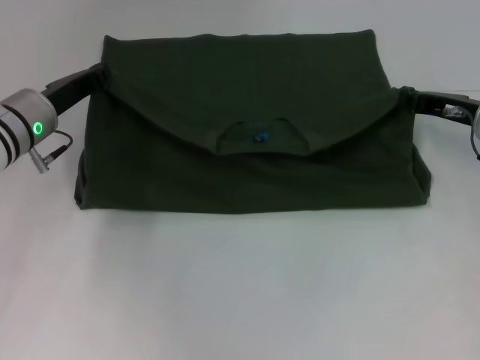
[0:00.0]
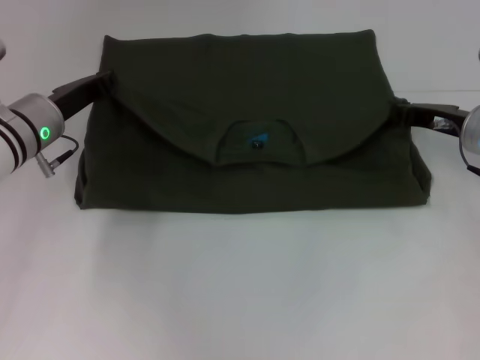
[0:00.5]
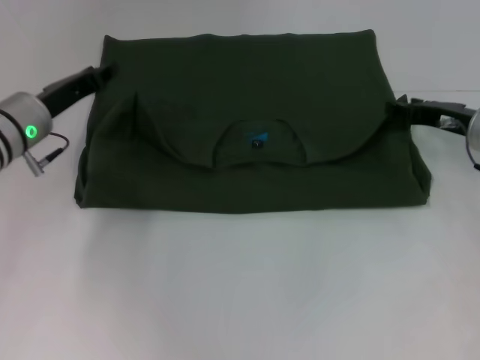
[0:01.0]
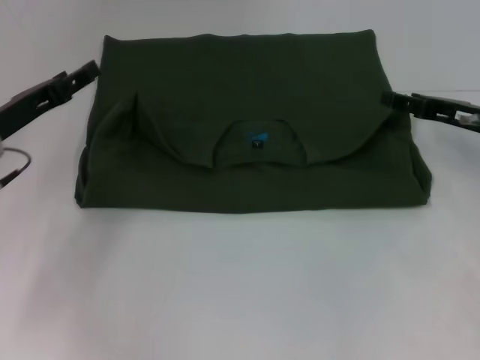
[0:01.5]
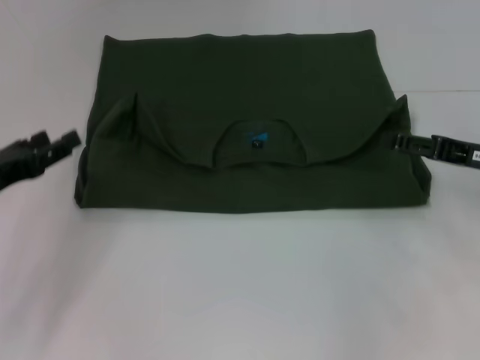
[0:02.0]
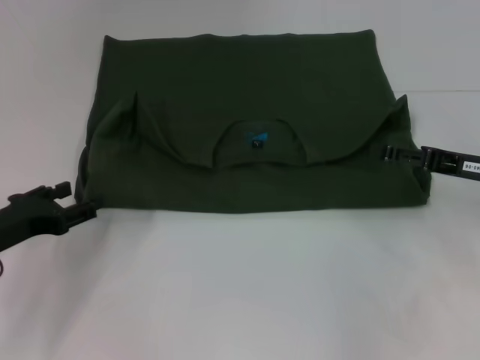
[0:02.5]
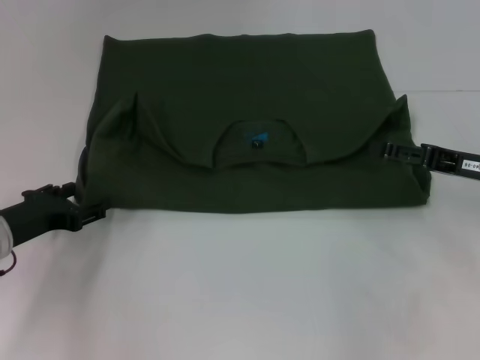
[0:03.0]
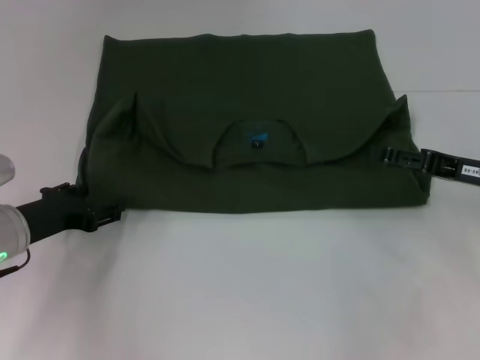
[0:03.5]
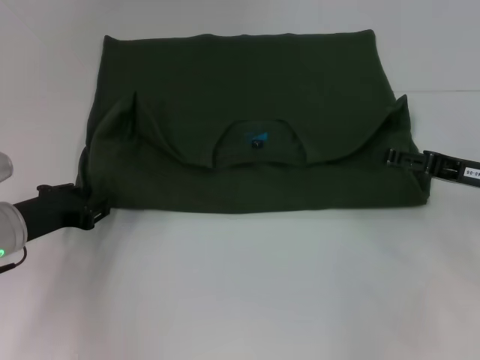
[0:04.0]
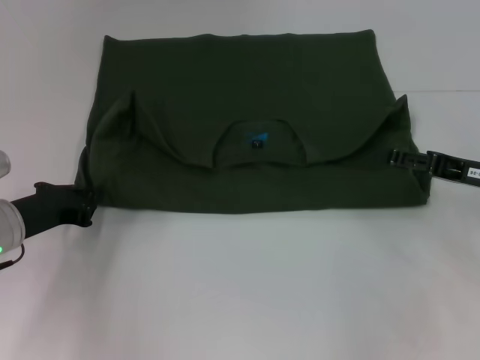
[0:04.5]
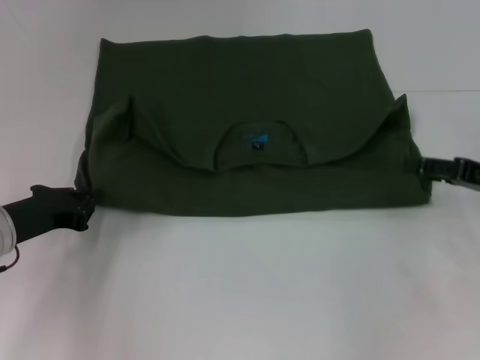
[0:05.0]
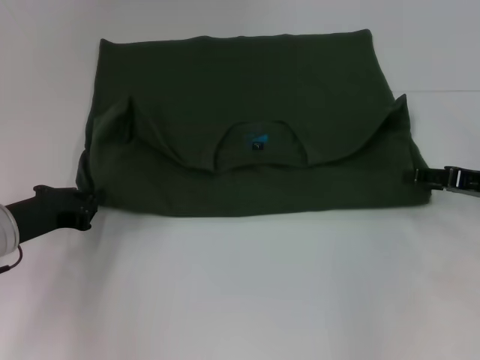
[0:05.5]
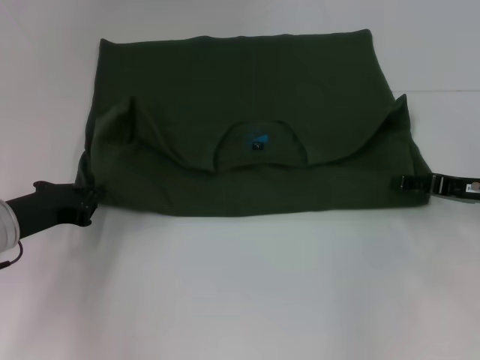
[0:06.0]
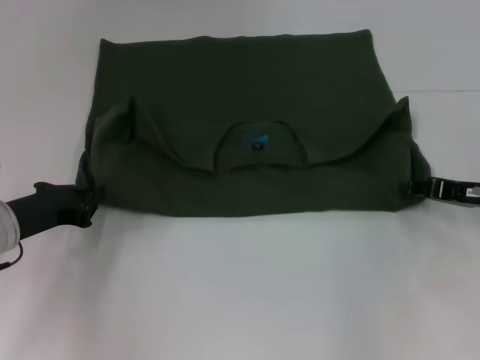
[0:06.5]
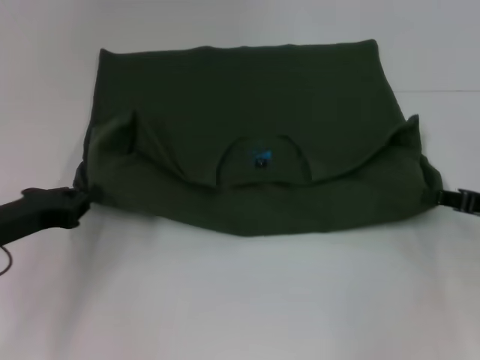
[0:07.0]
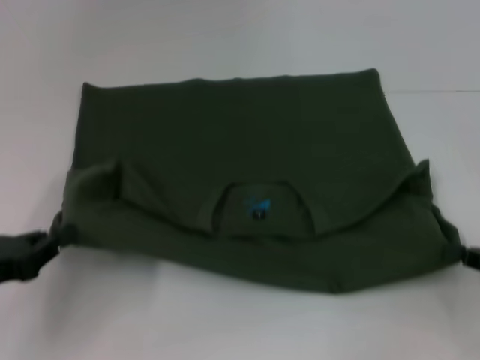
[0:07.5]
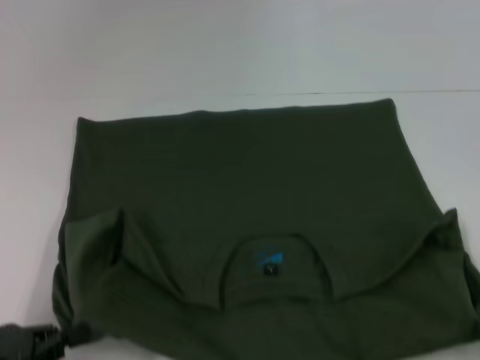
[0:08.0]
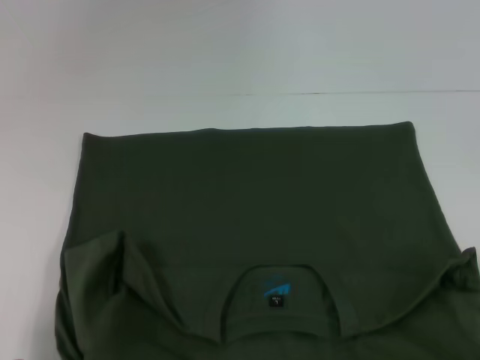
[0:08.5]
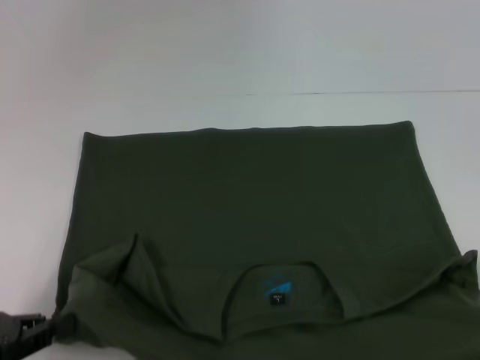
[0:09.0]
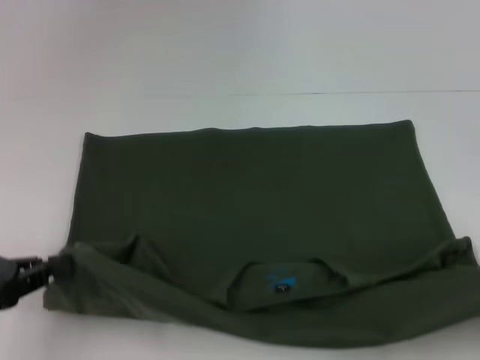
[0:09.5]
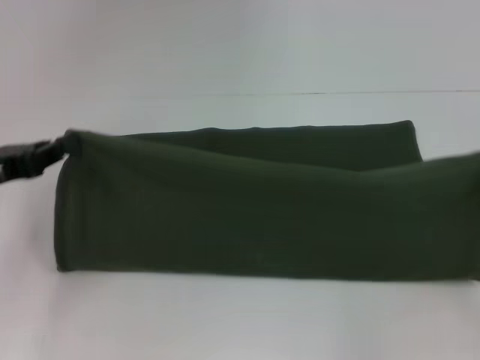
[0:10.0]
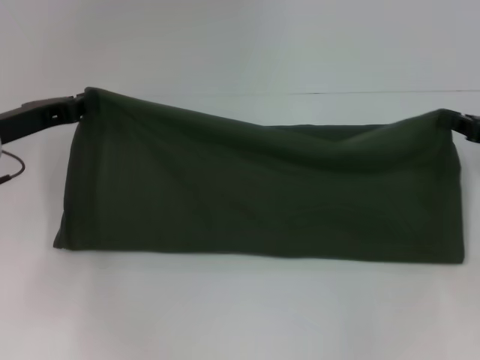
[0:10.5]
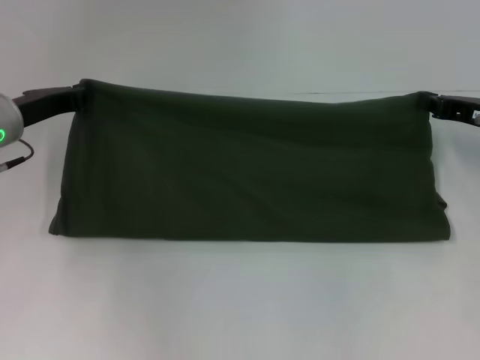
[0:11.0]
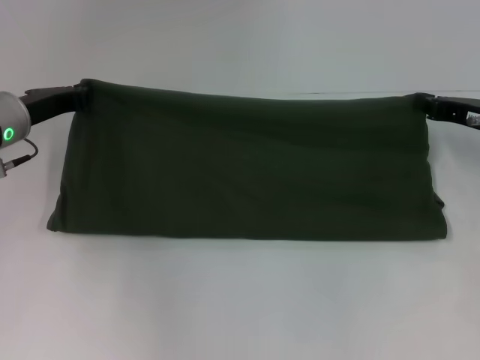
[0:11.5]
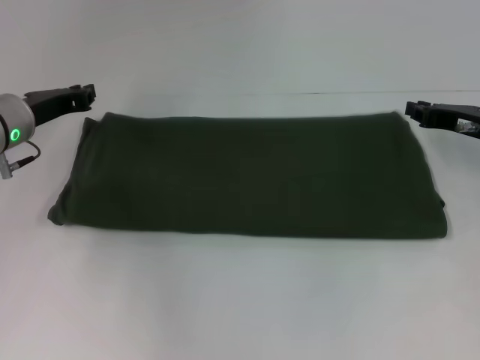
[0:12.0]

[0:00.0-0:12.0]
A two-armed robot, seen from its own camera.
Step, 0:01.0 to 0:08.0: Pull the clothes with your left hand.
Step, 0:01.0 to 0:08.0: Pull the clothes with your right hand.
Step, 0:08.5 to 0:12.0: Fold the clothes with your right hand.
0:00.0 to 0:02.0: The right gripper heads backward, covering roughly 5 cm, and opens, while the left gripper moves backward and to the left, about 15 cm, and opens.
0:02.0 to 0:04.0: The left gripper ends up about 5 cm from where it was.
0:04.0 to 0:06.0: The left gripper closes up.
0:06.0 to 0:08.0: The grippers both shift backward by roughly 15 cm. The right gripper closes up.
0:08.0 to 0:10.0: The two grippers go some 15 cm forward and upward.
0:10.0 to 0:12.0: The left gripper is displaced forward and to the right by some 15 cm. The right gripper moves forward and to the left, about 15 cm.

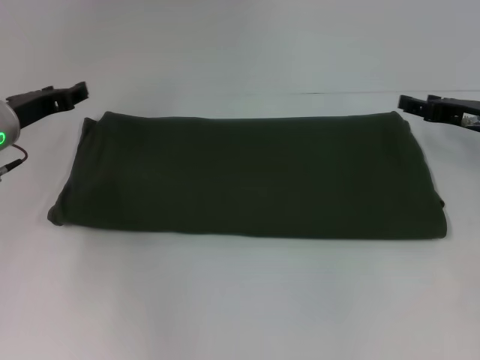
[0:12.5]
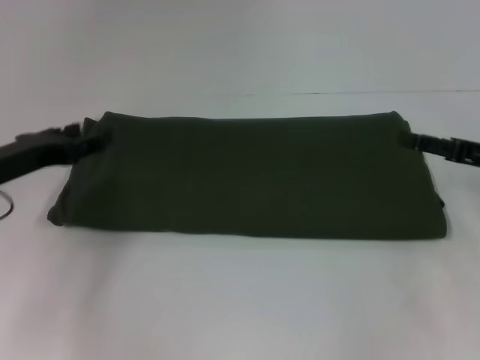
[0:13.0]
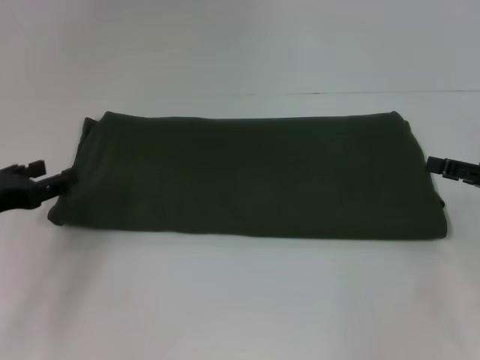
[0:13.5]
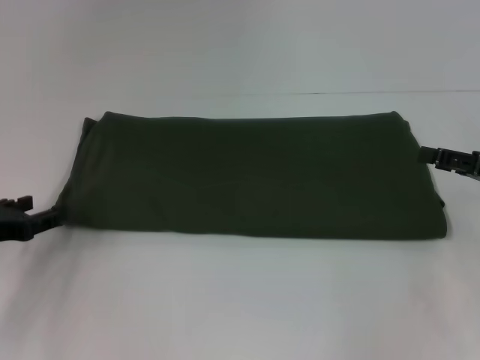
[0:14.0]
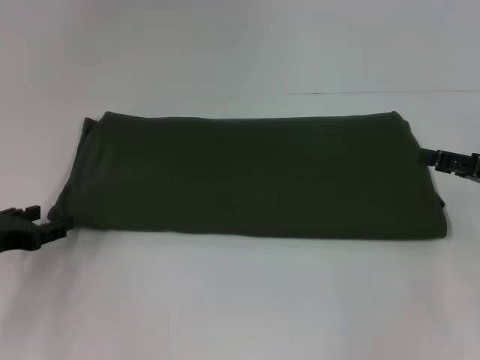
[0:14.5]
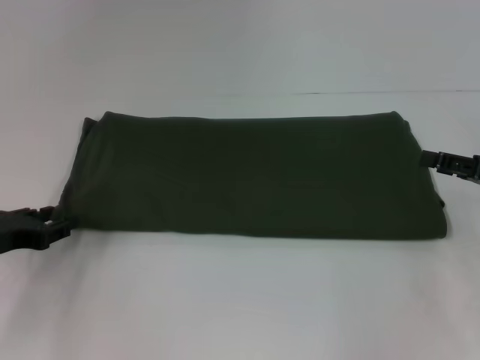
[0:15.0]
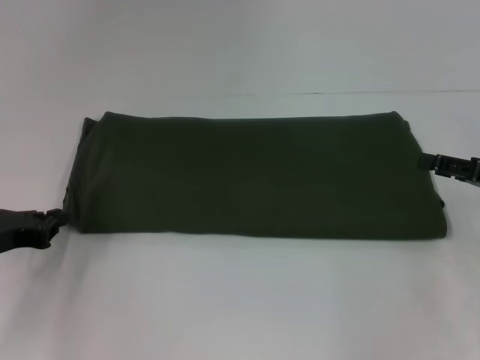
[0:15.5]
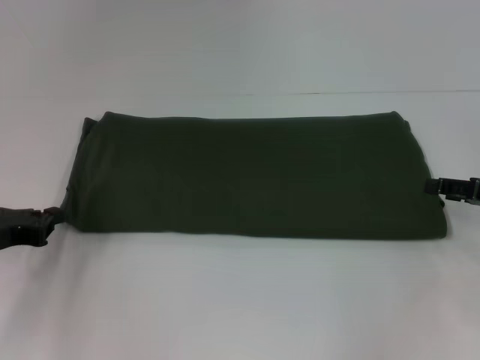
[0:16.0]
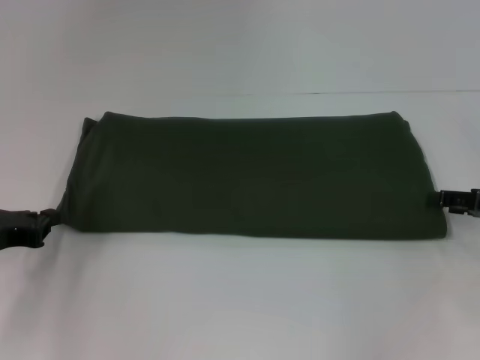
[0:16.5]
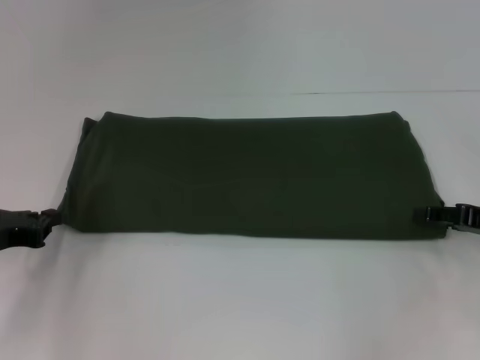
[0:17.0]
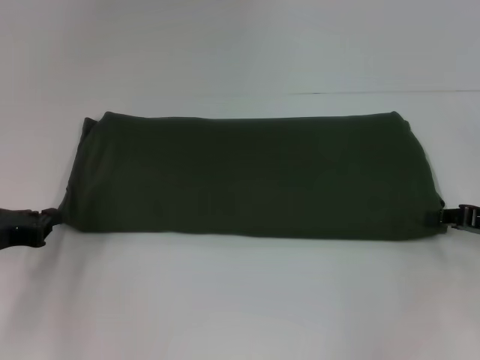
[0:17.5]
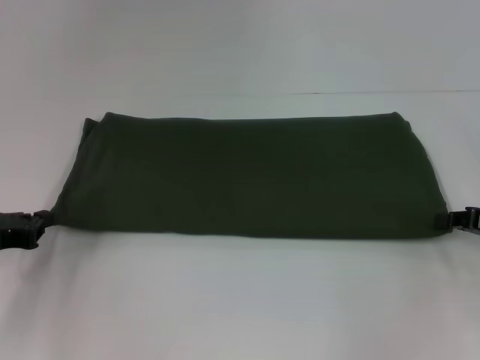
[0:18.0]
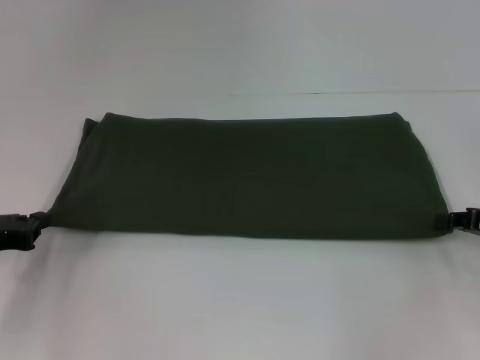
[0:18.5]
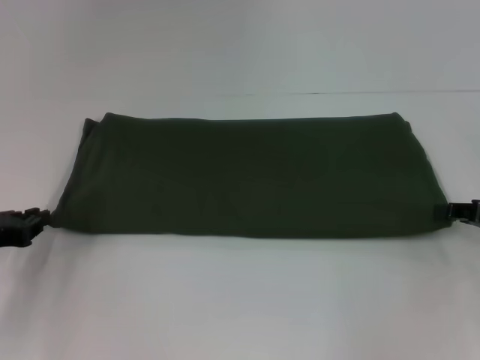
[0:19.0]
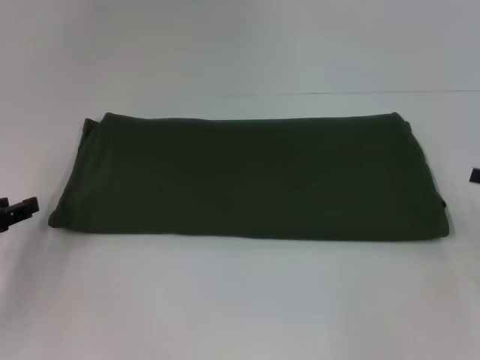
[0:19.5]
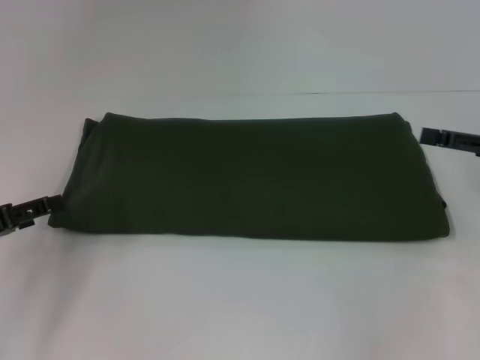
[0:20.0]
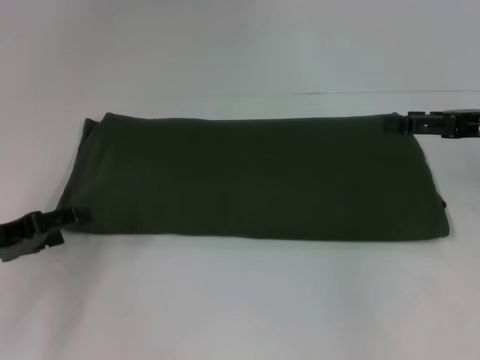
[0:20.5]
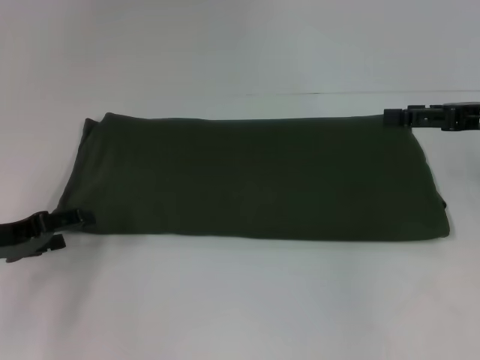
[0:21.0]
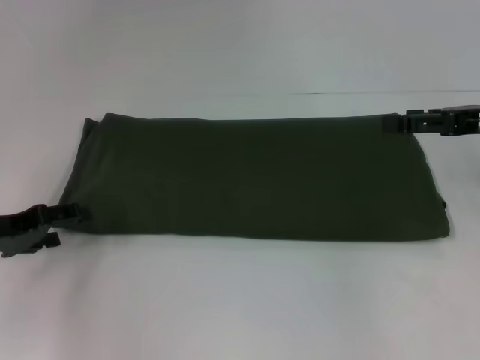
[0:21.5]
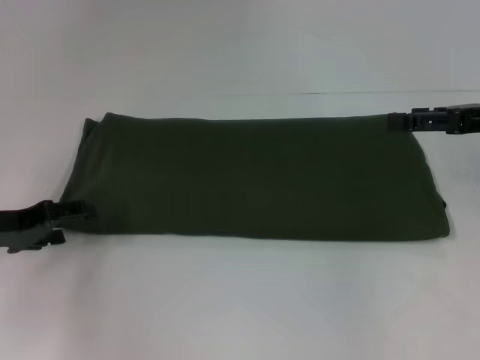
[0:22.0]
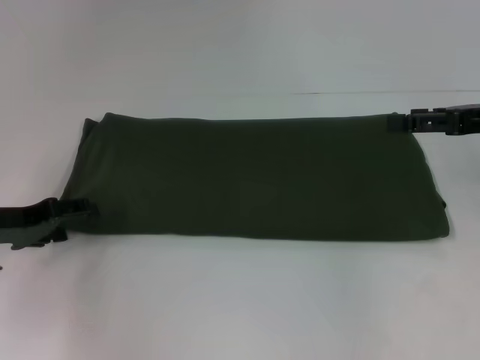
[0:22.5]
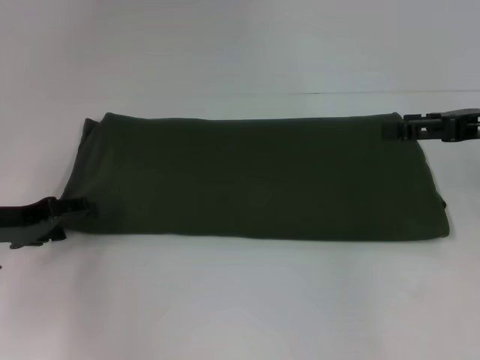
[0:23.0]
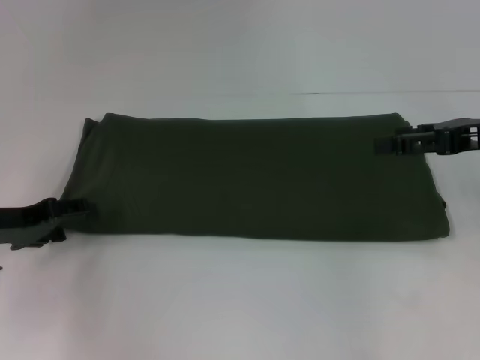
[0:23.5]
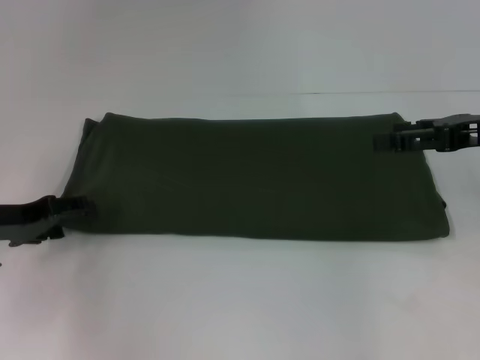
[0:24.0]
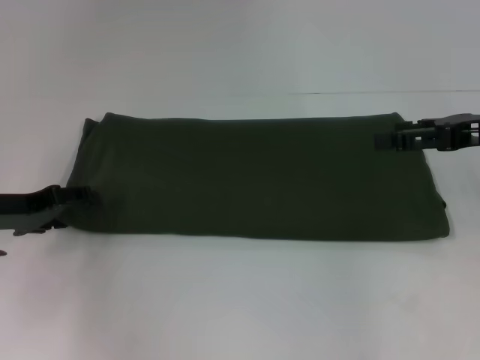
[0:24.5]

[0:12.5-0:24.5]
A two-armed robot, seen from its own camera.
0:12.5 to 0:14.5: The right gripper is displaced backward by about 10 cm. The left gripper is displaced backward by about 10 cm.
0:14.5 to 0:16.5: The left gripper closes up.
0:16.5 to 0:18.5: The right gripper closes.
0:18.5 to 0:20.5: The right gripper moves upward and forward, approximately 10 cm, and opens up. Meanwhile the left gripper opens its fingers.
0:20.5 to 0:24.5: The grippers move only a little.

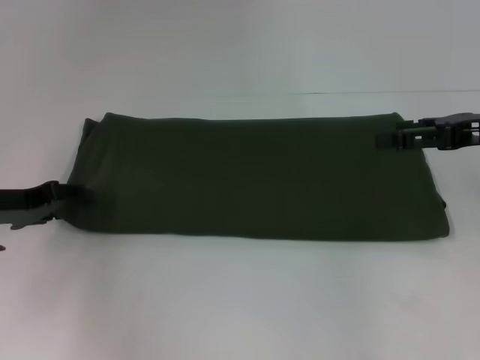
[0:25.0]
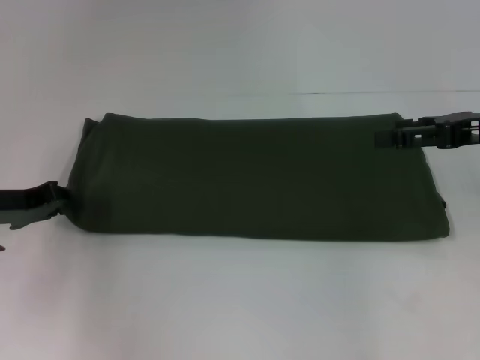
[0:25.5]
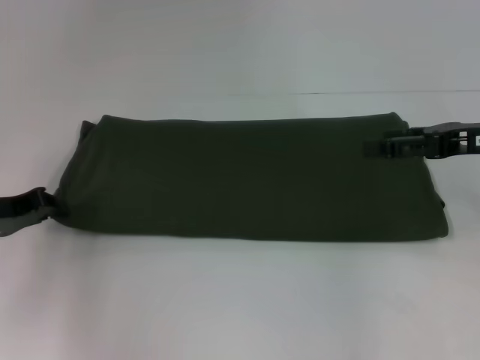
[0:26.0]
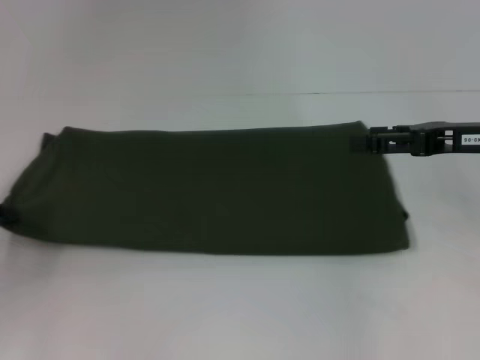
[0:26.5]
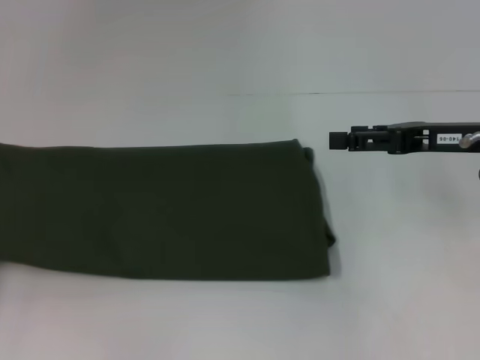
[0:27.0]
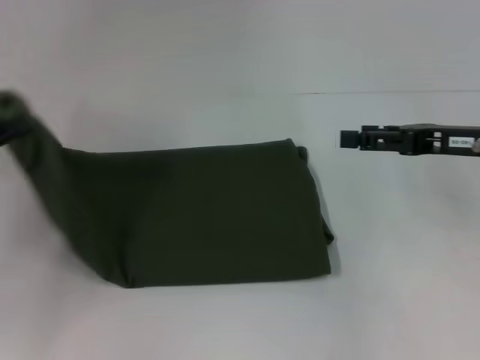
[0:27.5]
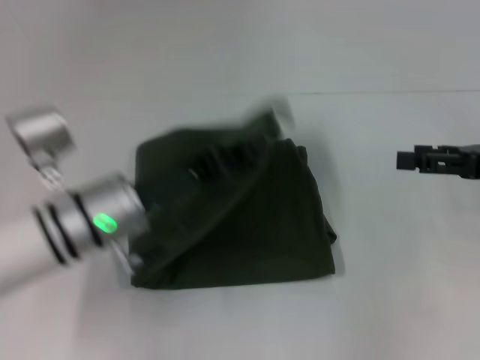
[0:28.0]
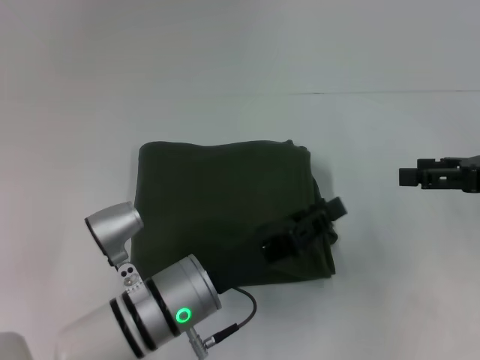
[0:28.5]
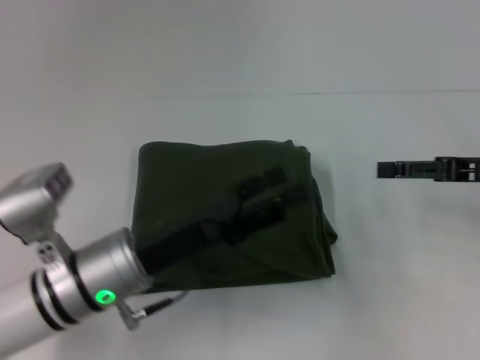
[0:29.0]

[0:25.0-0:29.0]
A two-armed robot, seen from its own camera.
Step, 0:25.0 to 0:28.5: Fold the clothes with your left hand.
0:25.0 to 0:27.0: The left gripper goes about 15 cm to the left and backward, and closes its fingers.
0:27.0 to 0:29.0: The right gripper ends up about 5 cm from where it was. Meanwhile the left gripper is displaced to the right by approximately 30 cm, and opens.
